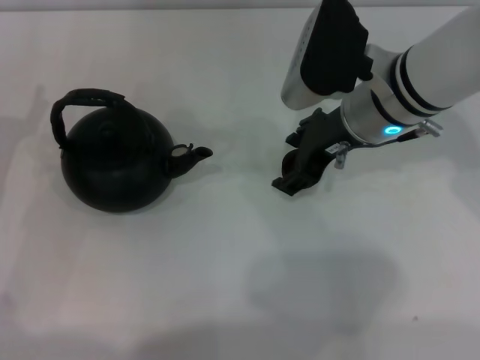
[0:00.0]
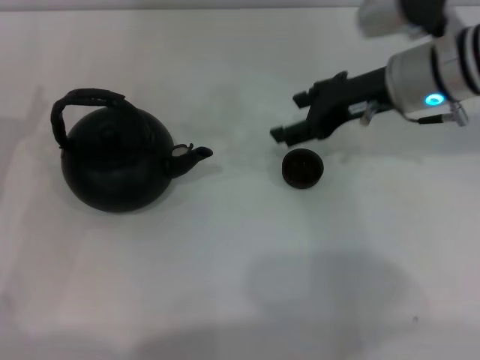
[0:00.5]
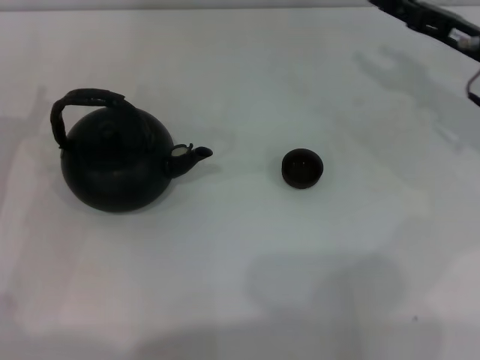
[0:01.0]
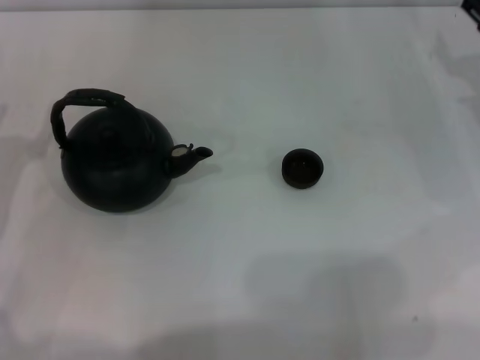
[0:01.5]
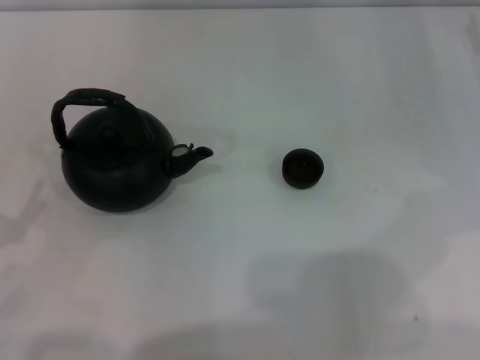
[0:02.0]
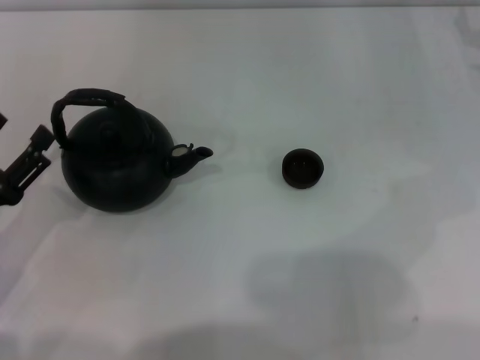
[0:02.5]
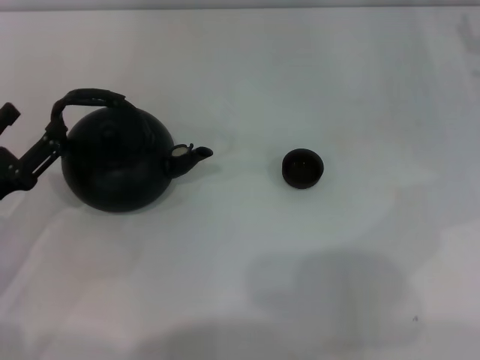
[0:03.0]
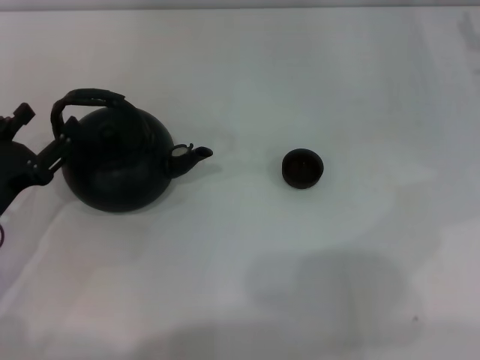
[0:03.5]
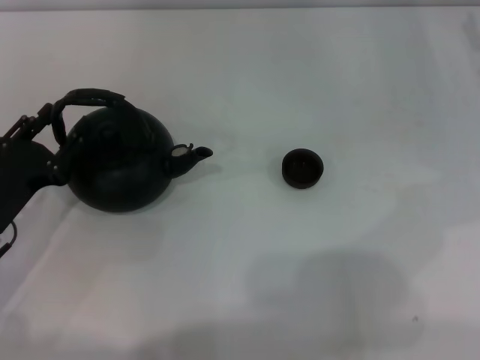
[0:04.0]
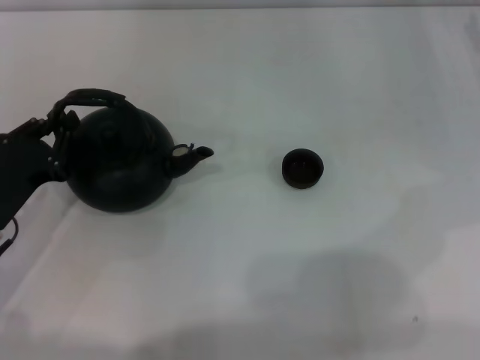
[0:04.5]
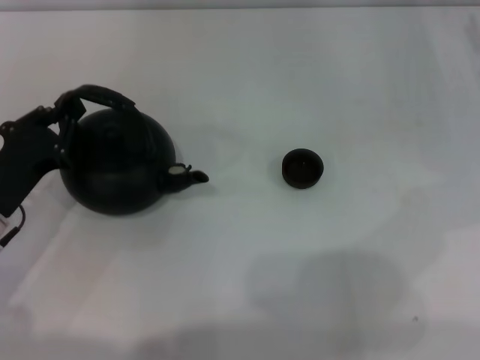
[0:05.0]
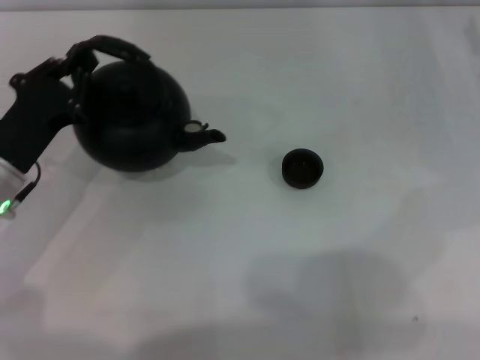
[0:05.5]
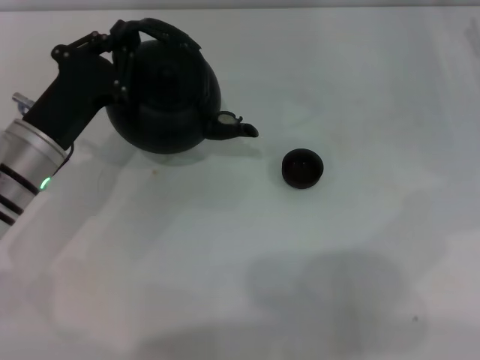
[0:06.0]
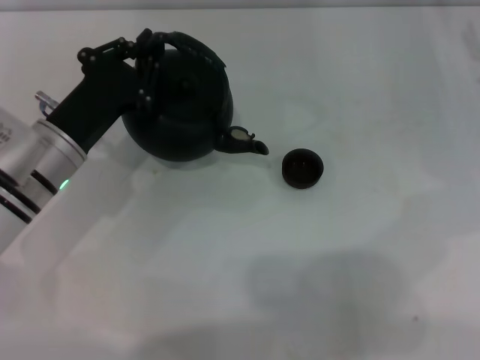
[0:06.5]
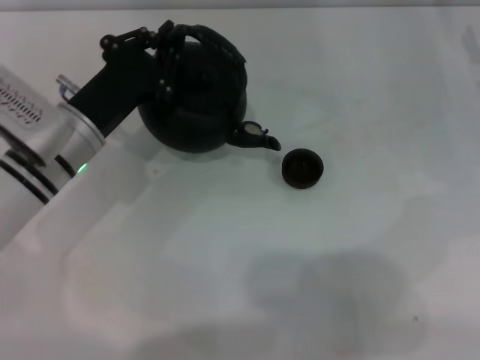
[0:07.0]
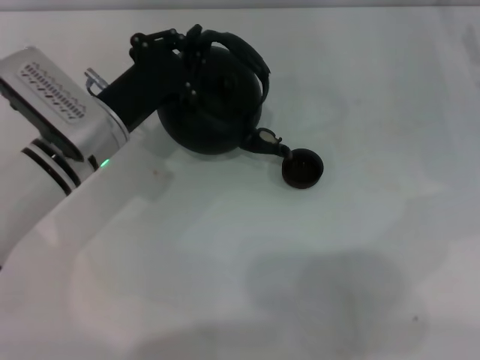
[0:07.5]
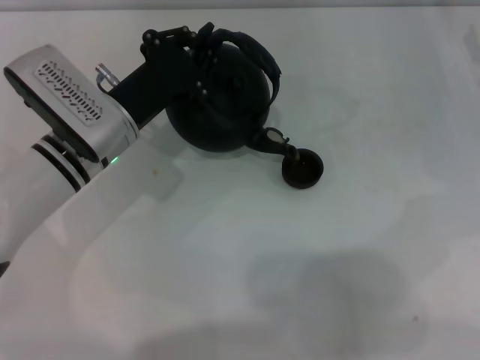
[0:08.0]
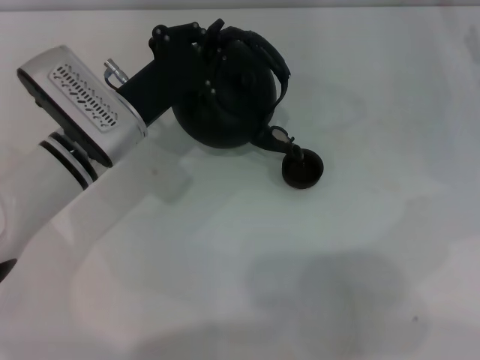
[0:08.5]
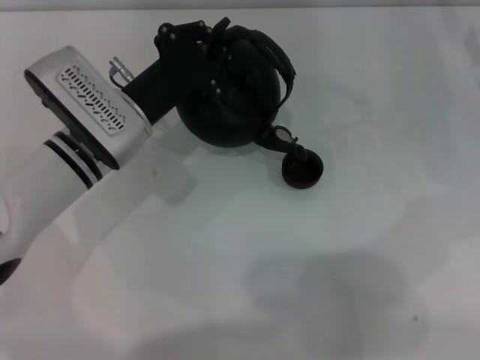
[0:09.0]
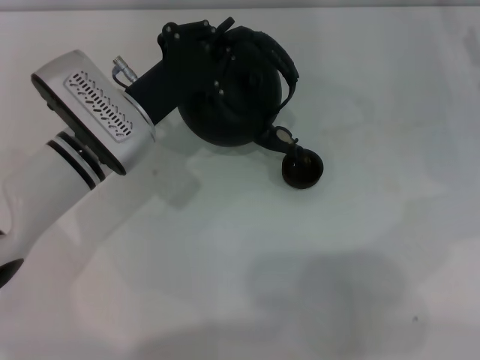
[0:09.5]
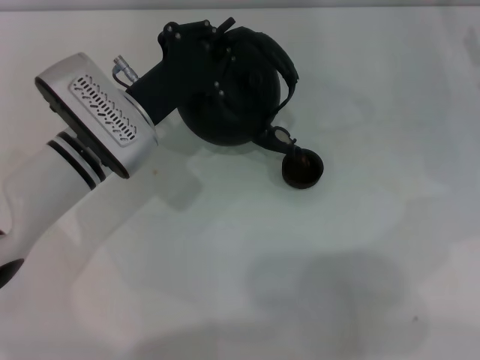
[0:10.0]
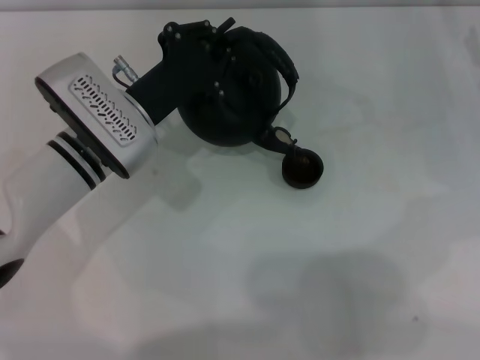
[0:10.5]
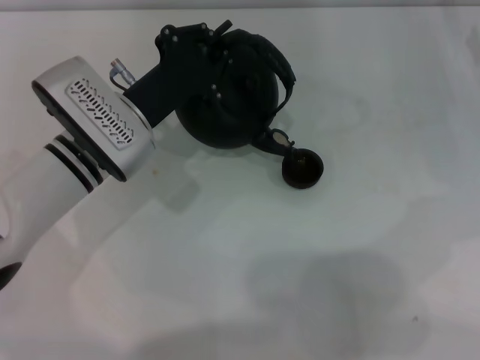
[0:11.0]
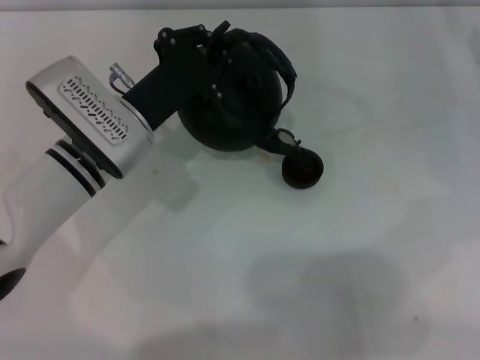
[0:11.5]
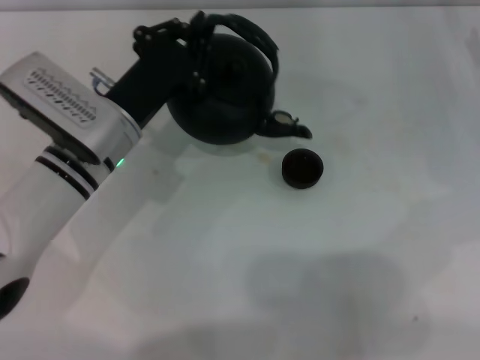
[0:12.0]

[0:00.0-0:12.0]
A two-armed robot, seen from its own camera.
Task of the whole recording: Grasp the handle of the teapot with one hand and pour tea into the teacup.
Step, 0:01.0 to 0:05.5: Pick up the teapot with the left gripper.
Step, 0:06.0 to 0:11.5: Pour tea into the teacup with the left gripper.
0:00.0 to 0:02.0: The right gripper heads to the right, covering about 20 cm, while the left gripper is displaced backward by approximately 15 cm.
0:02.0 to 0:04.0: The left gripper is displaced forward and to the right by about 10 cm.
0:04.0 to 0:06.0: The left gripper is displaced forward and to the right by some 10 cm, and closes up.
0:06.0 to 0:08.0: The left gripper heads to the right, covering about 5 cm.
0:08.0 to 0:12.0: The grippers make only small movements.

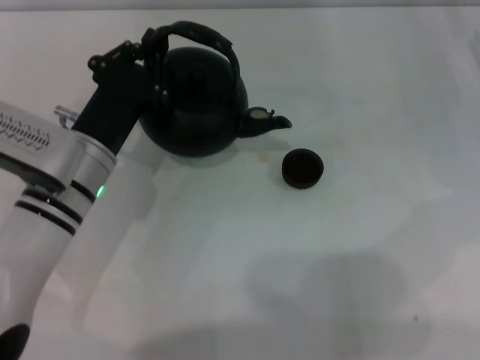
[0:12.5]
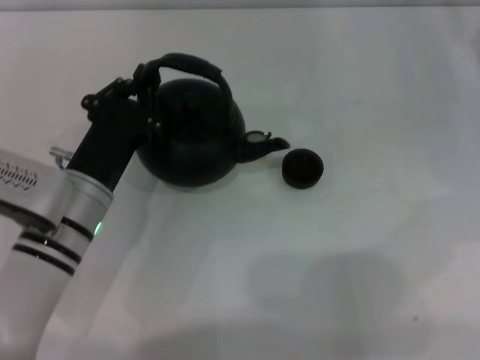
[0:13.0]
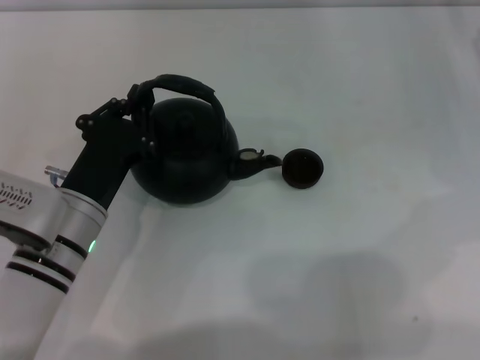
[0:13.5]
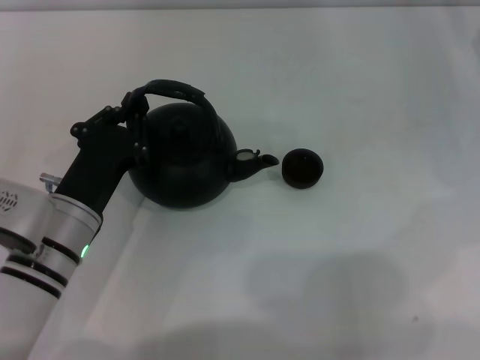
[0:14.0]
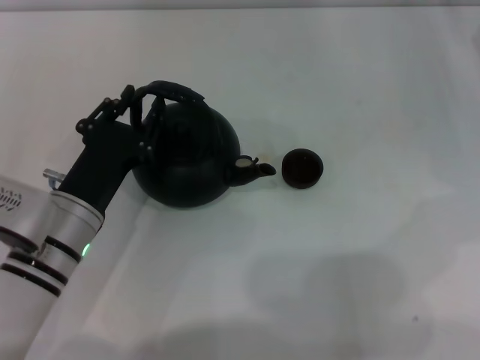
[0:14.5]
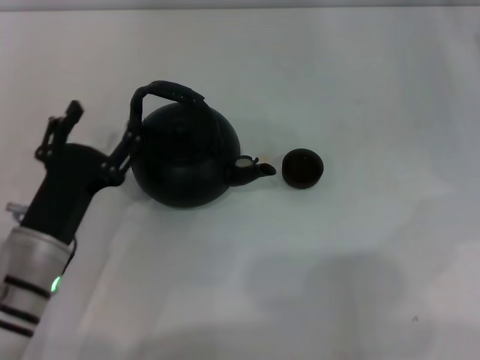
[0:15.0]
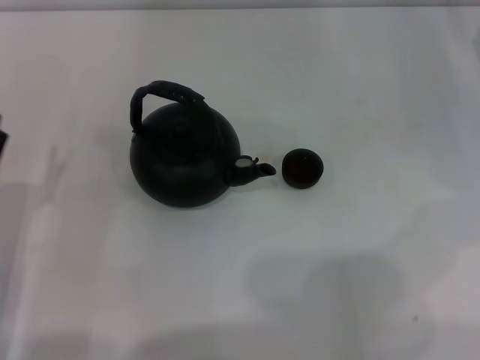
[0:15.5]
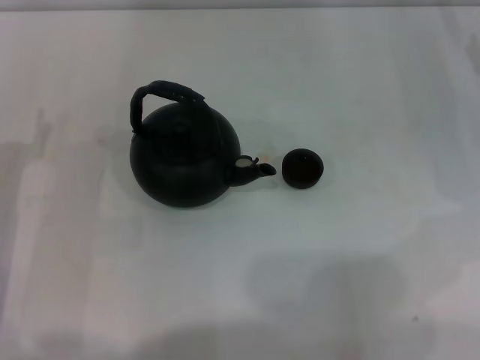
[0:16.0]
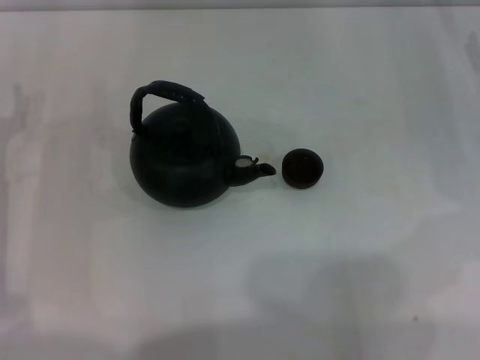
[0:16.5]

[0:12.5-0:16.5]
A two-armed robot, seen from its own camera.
Task of the whole recording: Grasp the handle of the teapot with one hand and pour tea into the teacup.
Step, 0:12.5 to 0:15.0: Put down the teapot with the left gripper.
0:12.5 to 0:14.5: The left gripper changes place by some 5 cm.
0:14.5 to 0:16.5: The left gripper shifts roughly 10 cm to the left, and opens.
